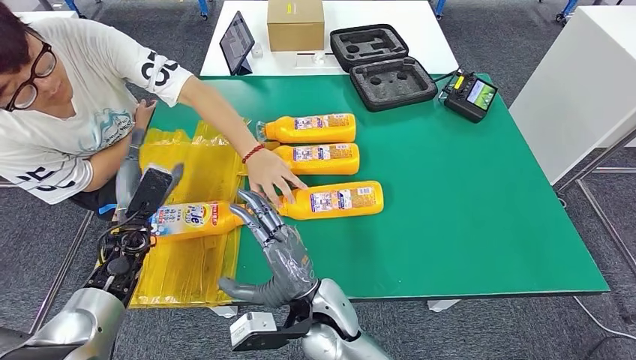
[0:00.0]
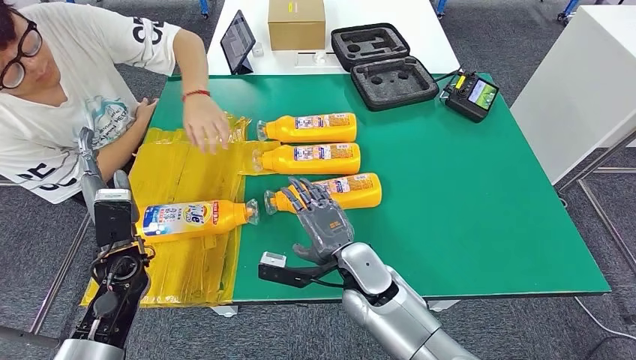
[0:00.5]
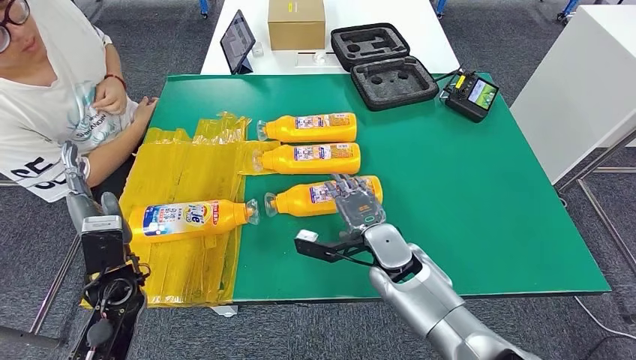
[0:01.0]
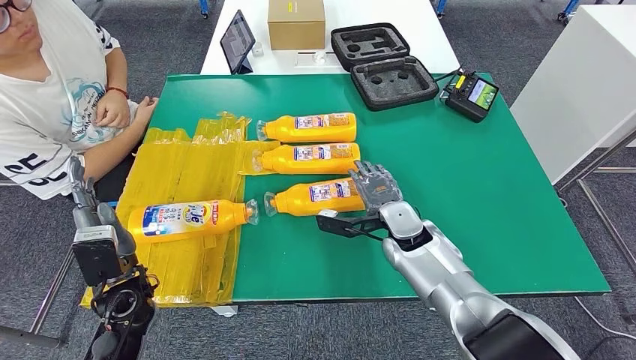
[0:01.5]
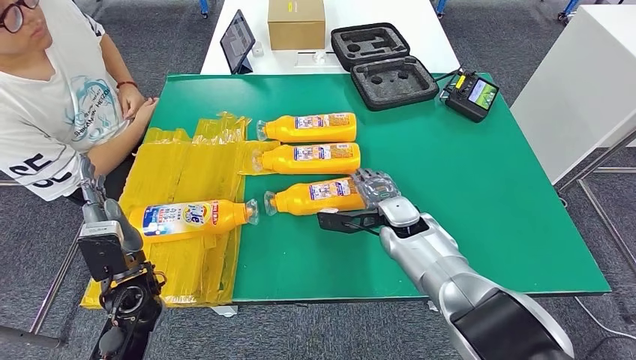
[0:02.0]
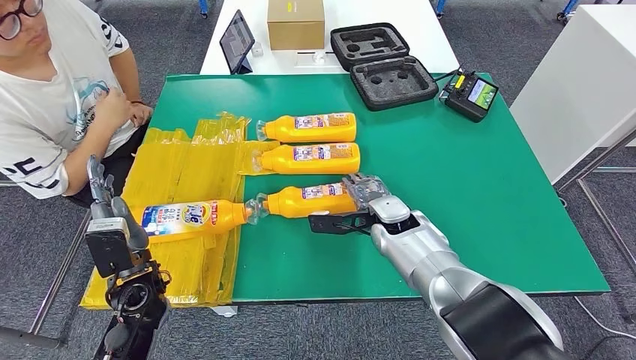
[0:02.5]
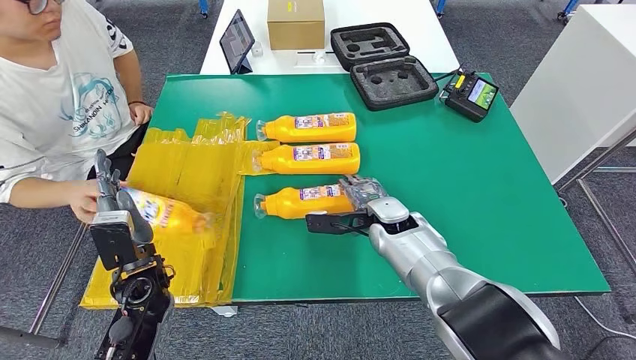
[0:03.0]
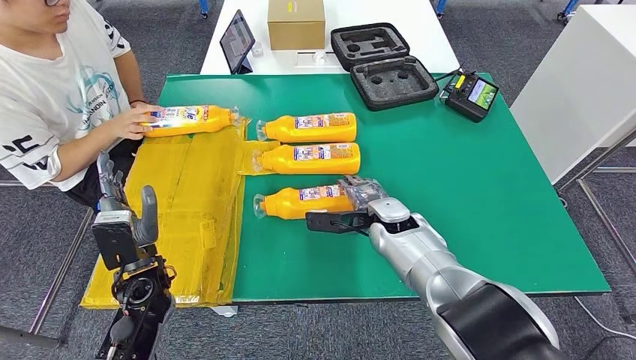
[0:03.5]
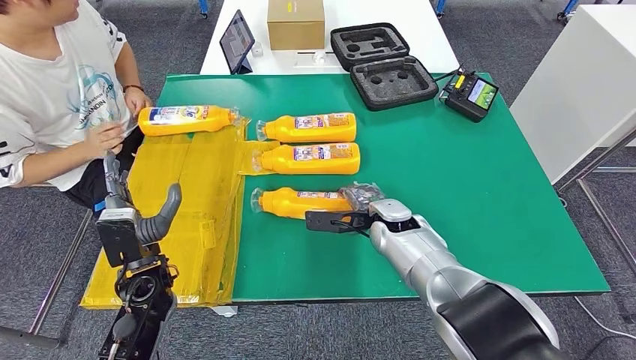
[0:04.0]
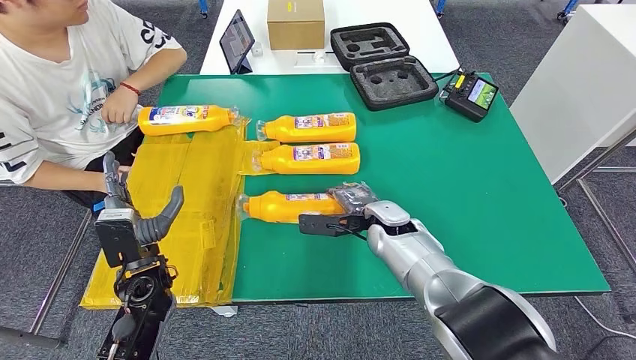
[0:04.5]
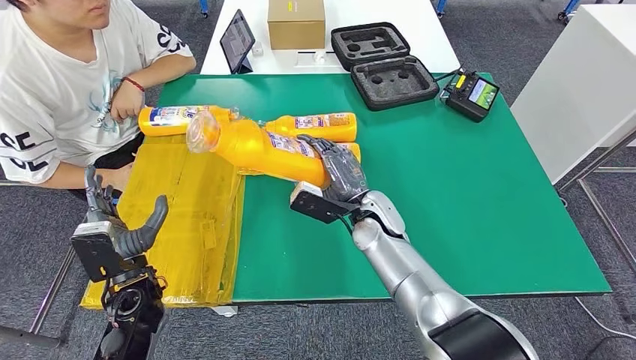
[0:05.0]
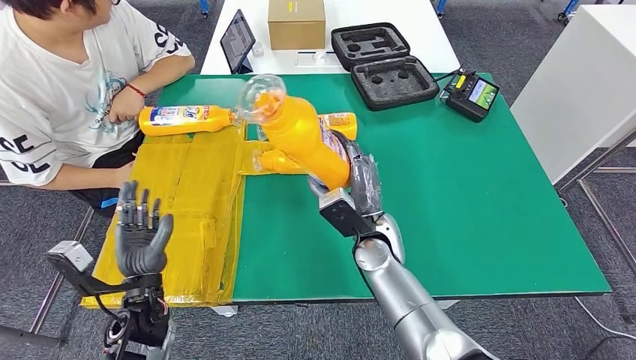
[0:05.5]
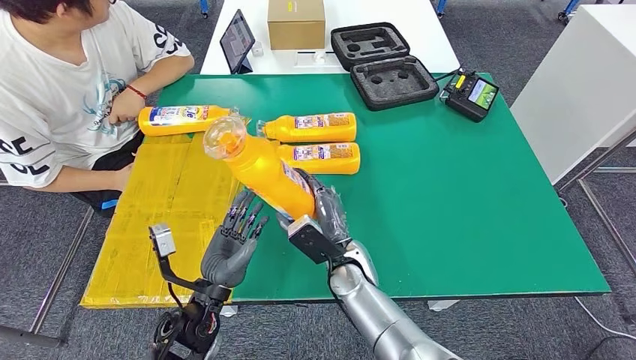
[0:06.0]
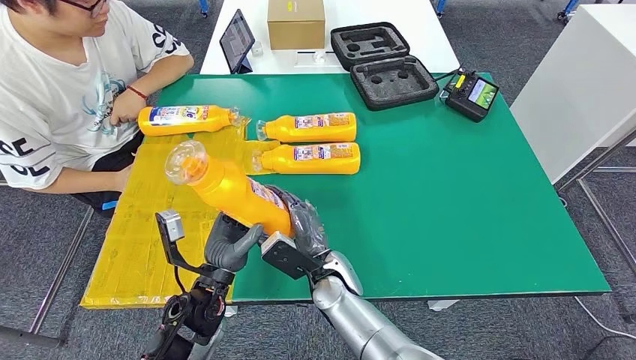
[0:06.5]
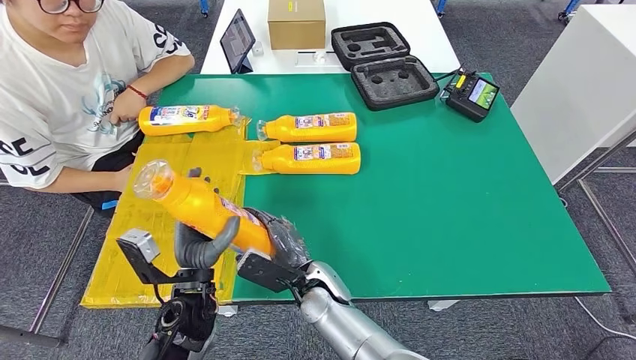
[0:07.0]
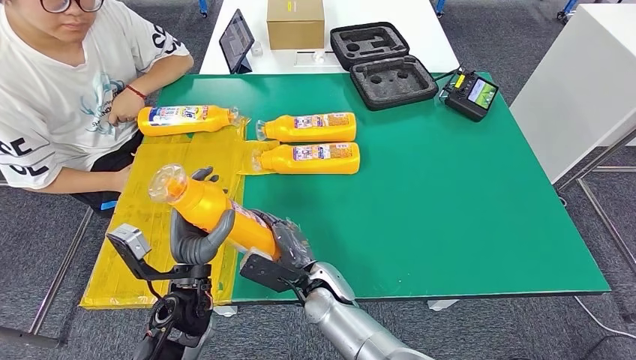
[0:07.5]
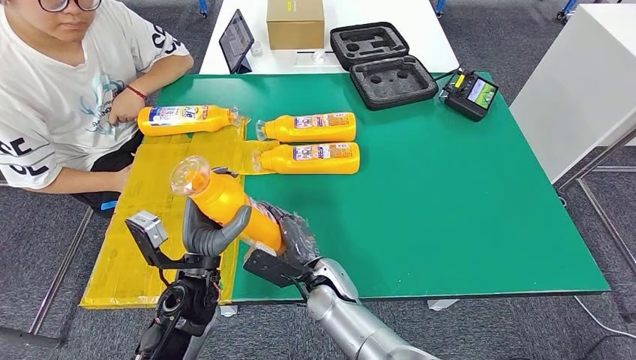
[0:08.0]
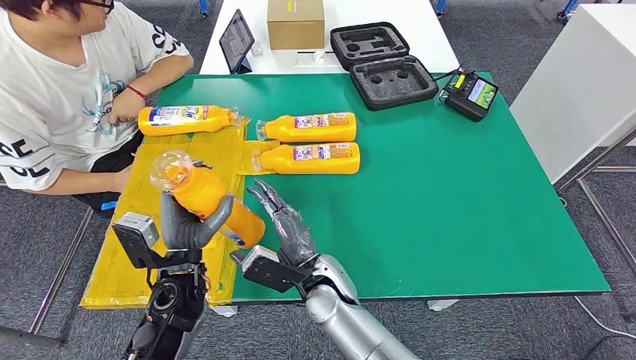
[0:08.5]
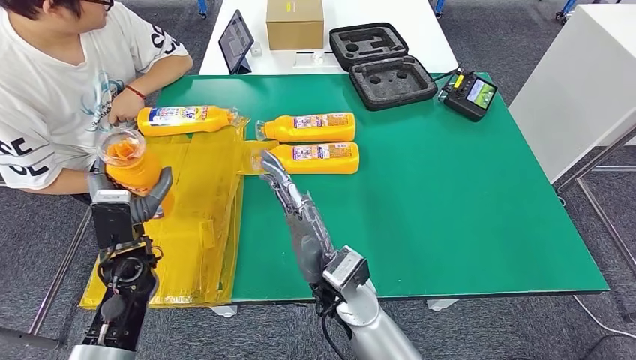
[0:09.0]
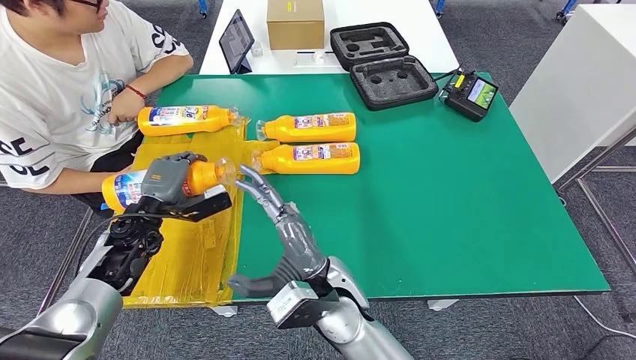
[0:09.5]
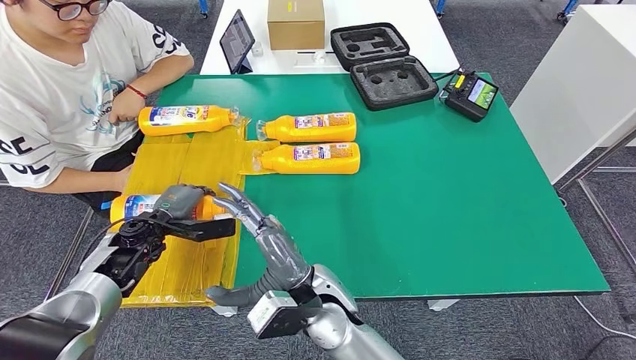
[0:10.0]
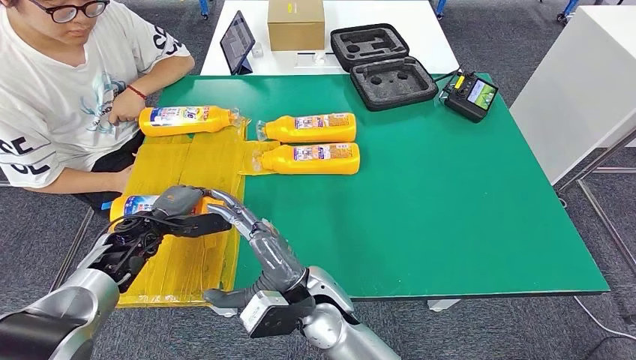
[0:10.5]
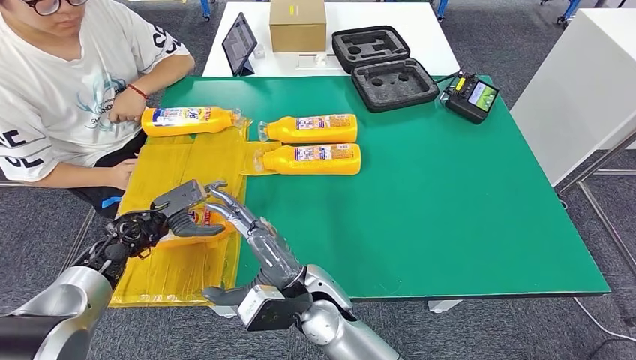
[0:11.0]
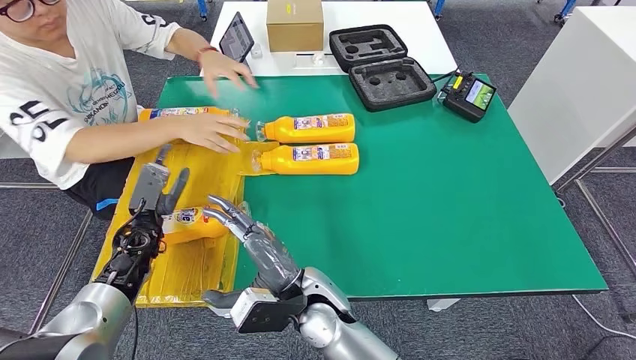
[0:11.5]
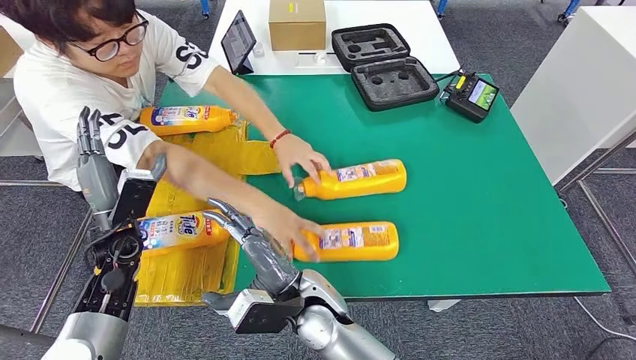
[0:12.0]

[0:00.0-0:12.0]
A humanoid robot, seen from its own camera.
Step, 0:02.5 to 0:05.5: Pick up the fast-moving consumer goods bottle from the table.
Step, 0:07.0 to 0:11.0: Flip the fast-moving consumer goods bottle to the front side.
0:02.0 to 0:04.0: The hands make only small movements.
0:06.0 to 0:08.0: The right hand travels to the left by roughly 5 cm.
0:08.0 to 0:10.0: The right hand is displaced upward by approximately 10 cm. The left hand is displaced to the left and forward by about 20 cm.

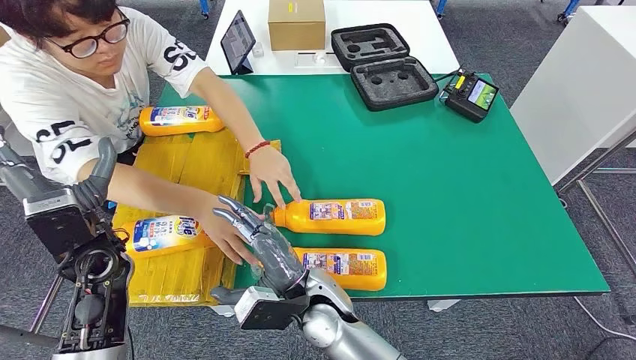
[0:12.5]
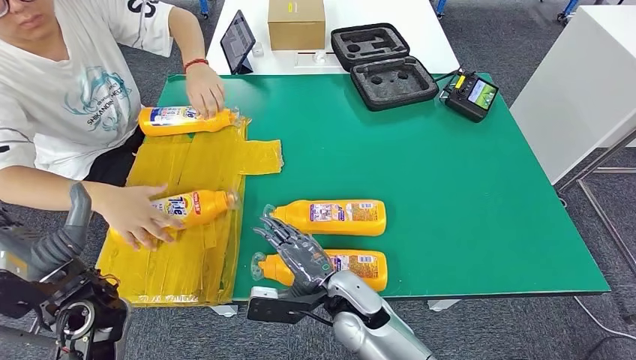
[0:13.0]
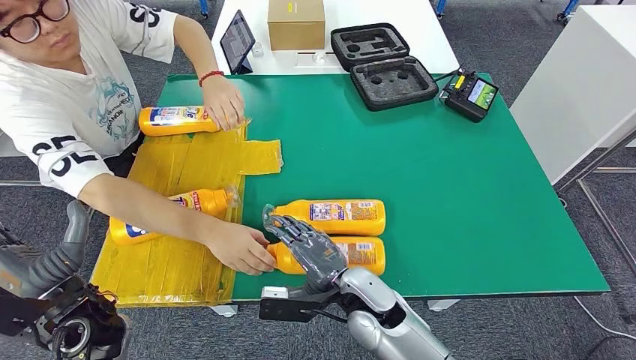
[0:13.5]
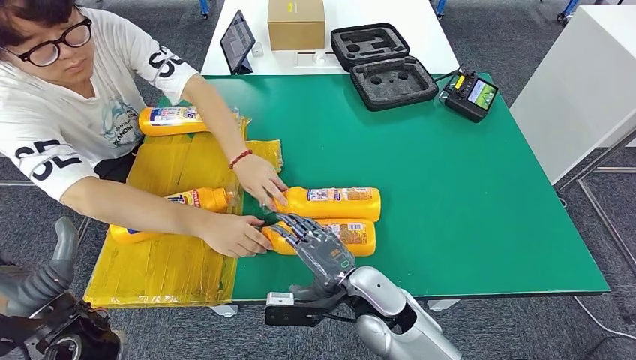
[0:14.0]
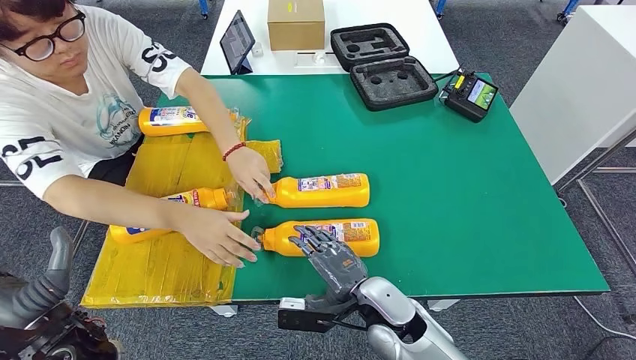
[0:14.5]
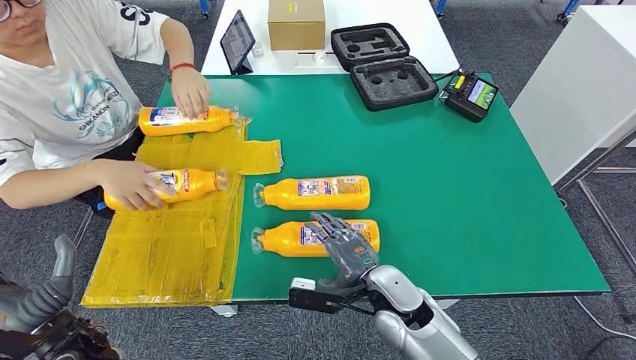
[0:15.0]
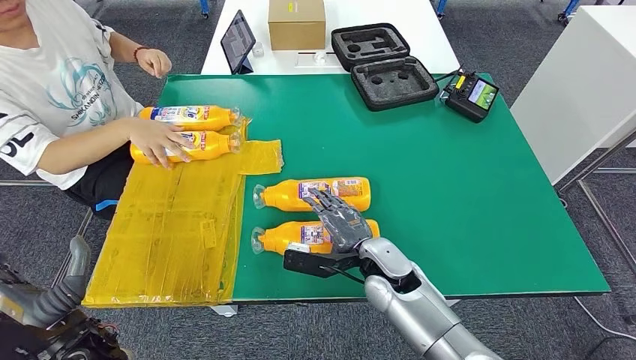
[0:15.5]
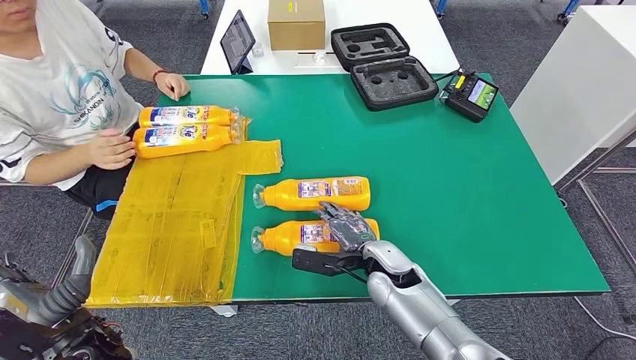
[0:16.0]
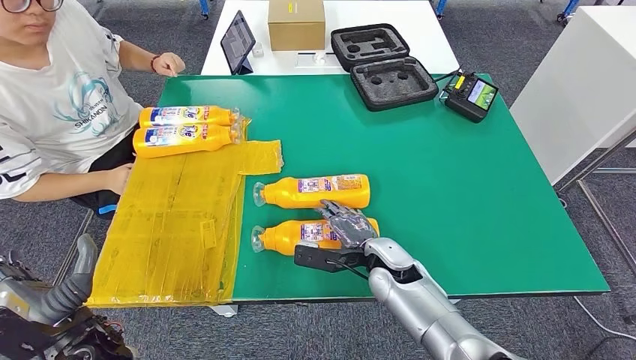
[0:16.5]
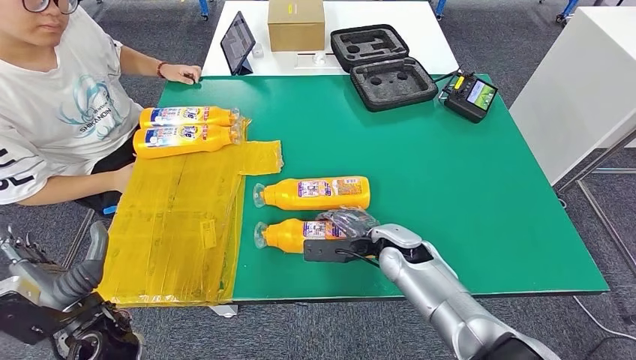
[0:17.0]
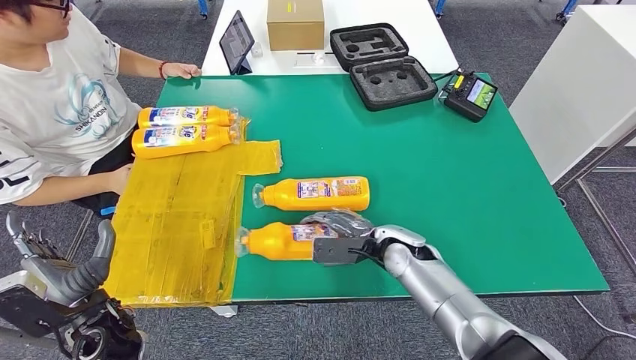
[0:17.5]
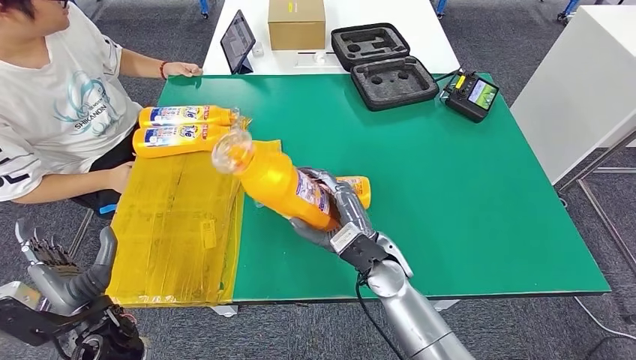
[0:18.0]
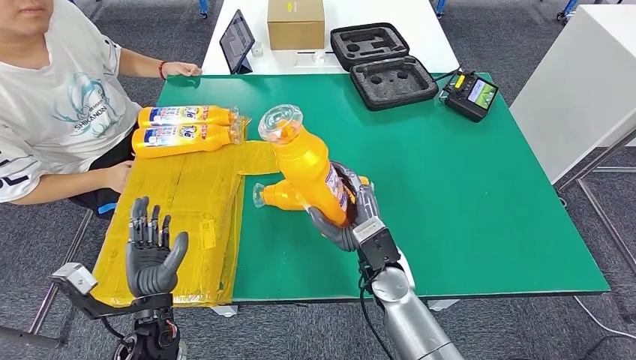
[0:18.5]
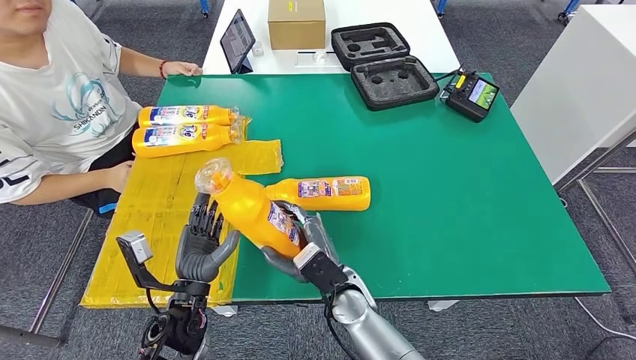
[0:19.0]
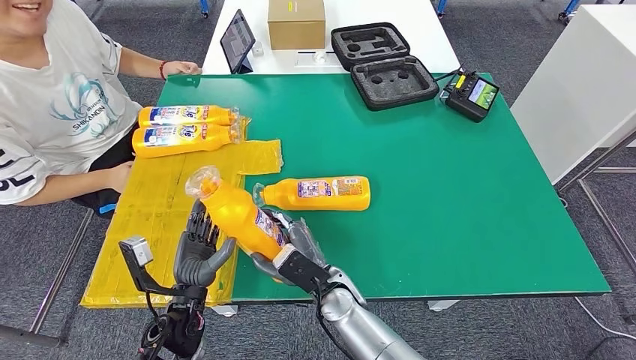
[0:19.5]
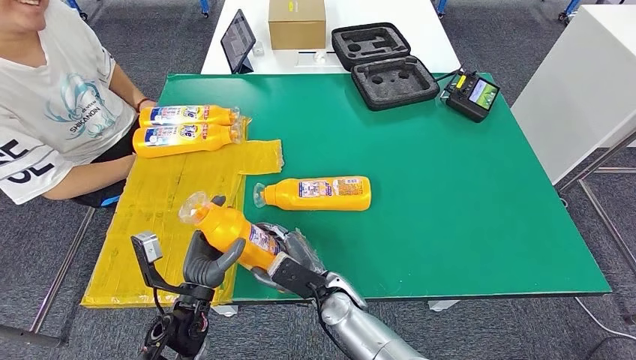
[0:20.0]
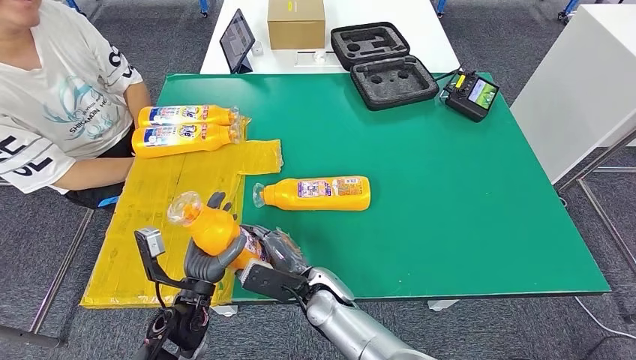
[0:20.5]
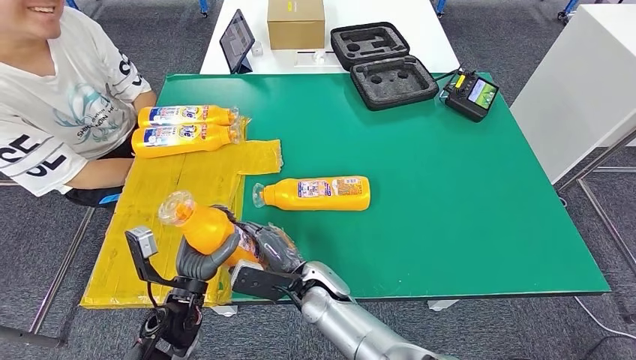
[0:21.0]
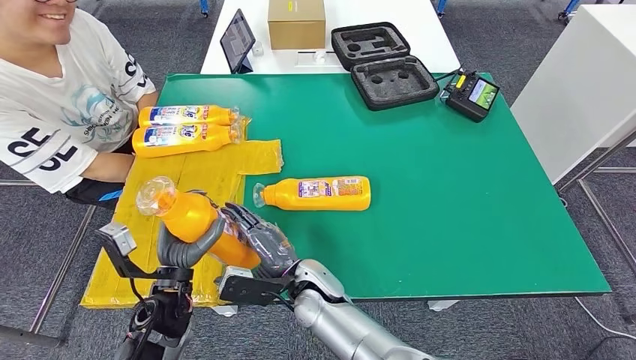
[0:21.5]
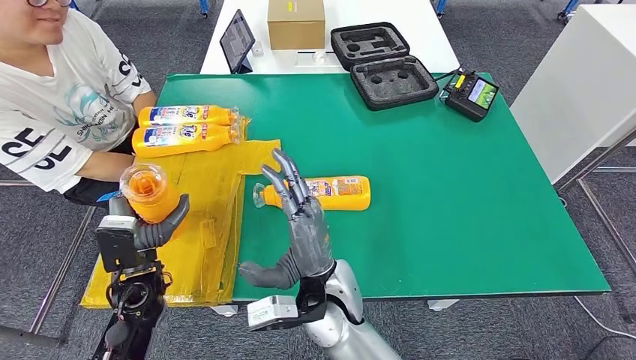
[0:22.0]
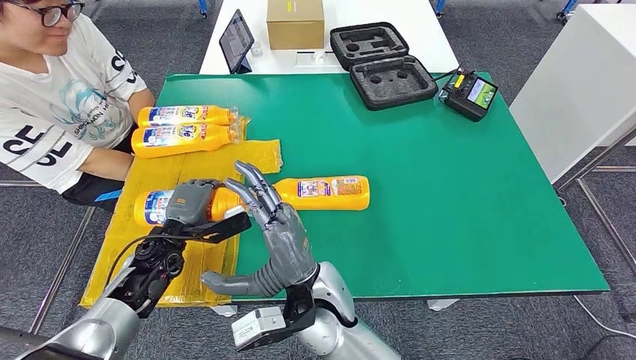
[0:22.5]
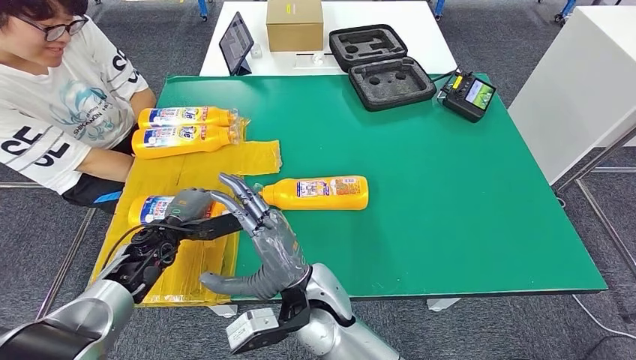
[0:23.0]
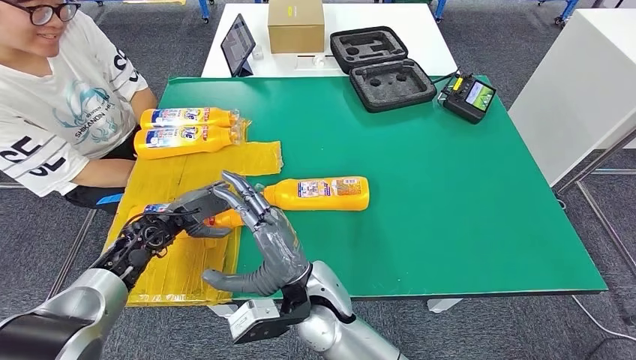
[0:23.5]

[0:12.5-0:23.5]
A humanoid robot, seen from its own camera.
Step, 0:16.0 to 0:18.0: Pick up the fast-moving consumer goods bottle from the table.
0:20.0 to 0:21.5: The right hand changes place by roughly 5 cm.
